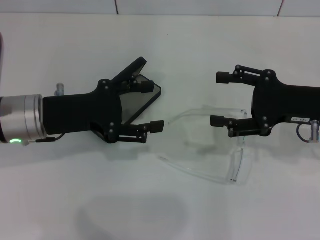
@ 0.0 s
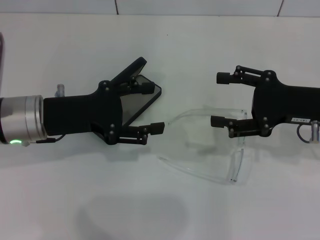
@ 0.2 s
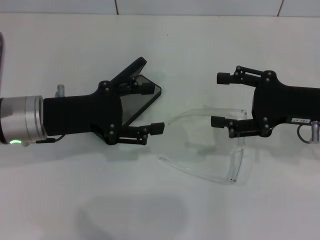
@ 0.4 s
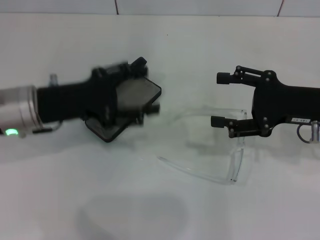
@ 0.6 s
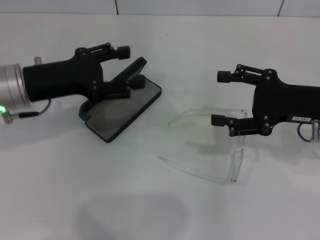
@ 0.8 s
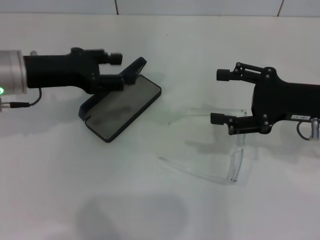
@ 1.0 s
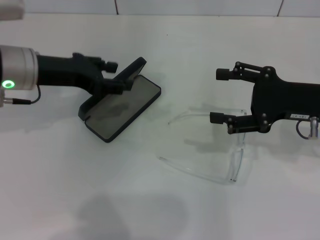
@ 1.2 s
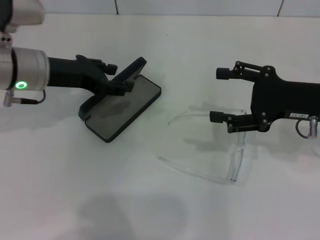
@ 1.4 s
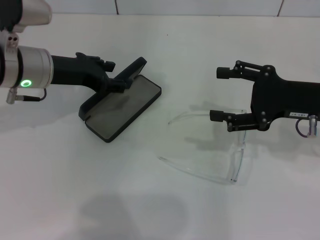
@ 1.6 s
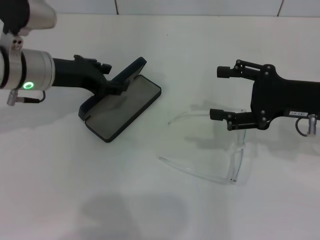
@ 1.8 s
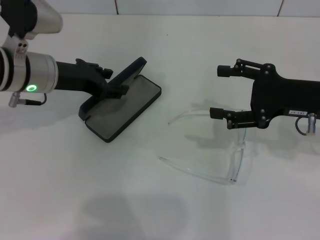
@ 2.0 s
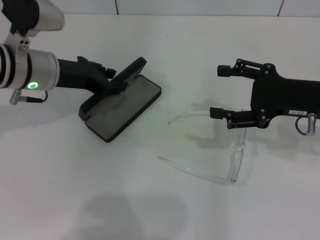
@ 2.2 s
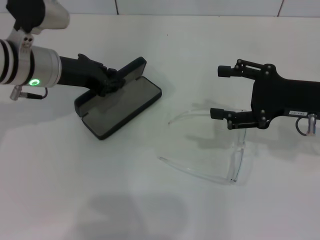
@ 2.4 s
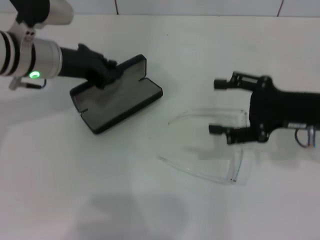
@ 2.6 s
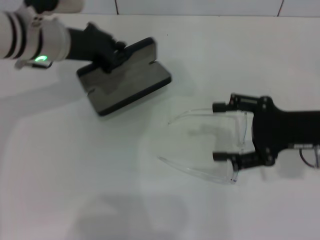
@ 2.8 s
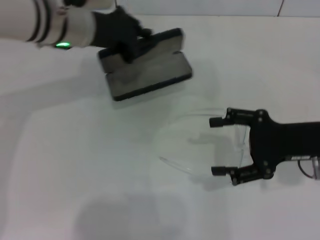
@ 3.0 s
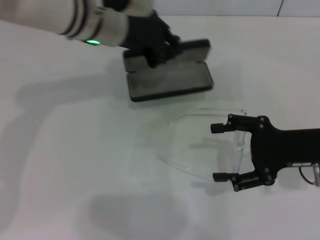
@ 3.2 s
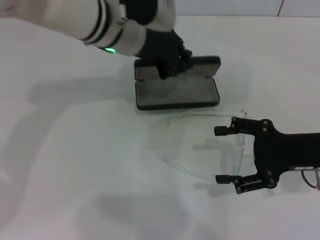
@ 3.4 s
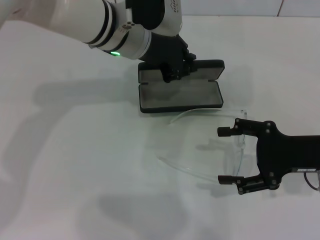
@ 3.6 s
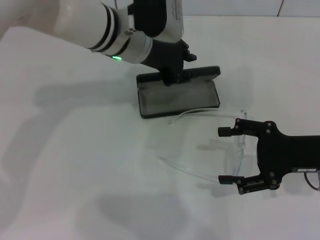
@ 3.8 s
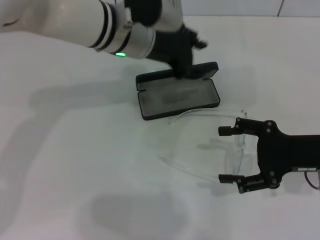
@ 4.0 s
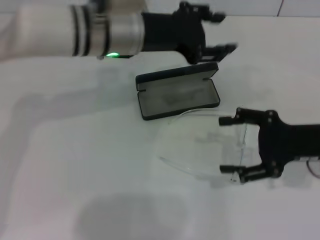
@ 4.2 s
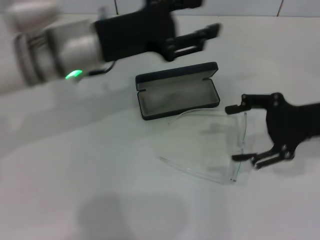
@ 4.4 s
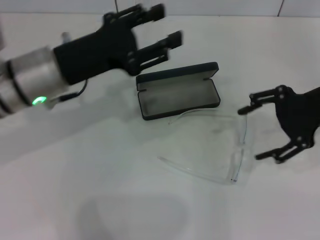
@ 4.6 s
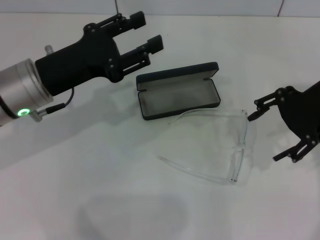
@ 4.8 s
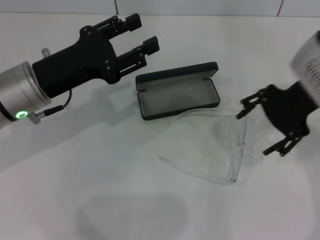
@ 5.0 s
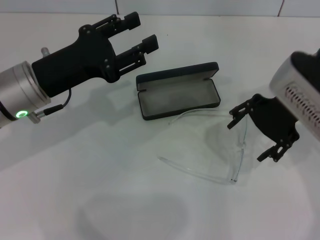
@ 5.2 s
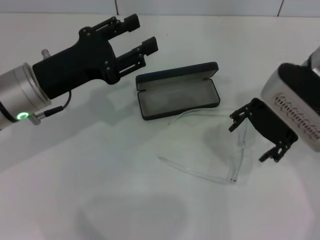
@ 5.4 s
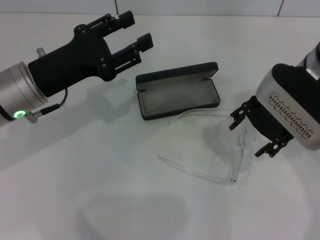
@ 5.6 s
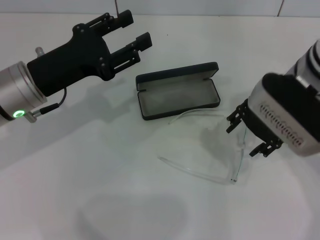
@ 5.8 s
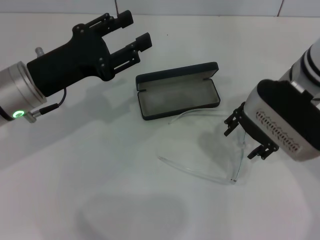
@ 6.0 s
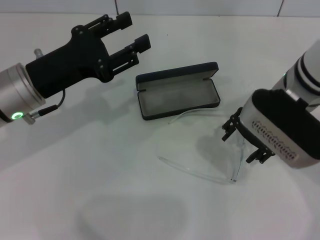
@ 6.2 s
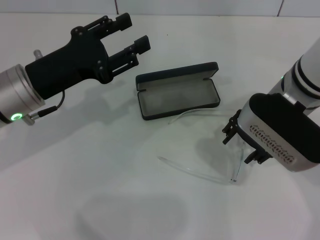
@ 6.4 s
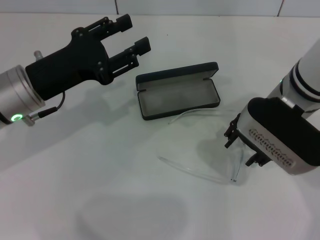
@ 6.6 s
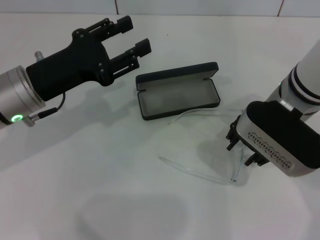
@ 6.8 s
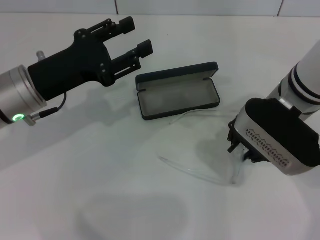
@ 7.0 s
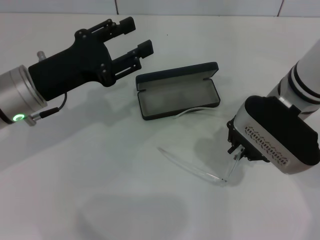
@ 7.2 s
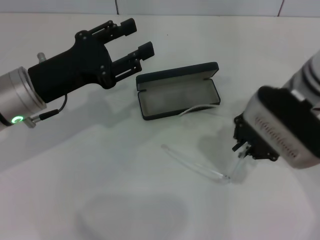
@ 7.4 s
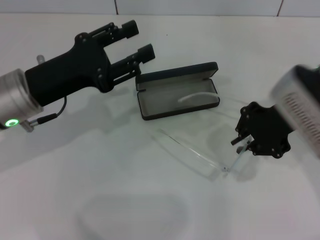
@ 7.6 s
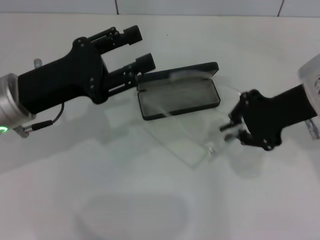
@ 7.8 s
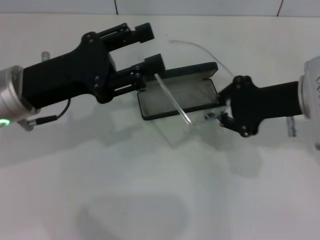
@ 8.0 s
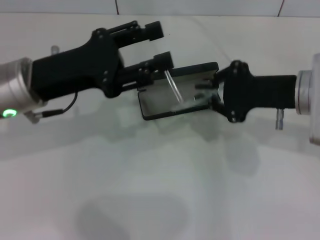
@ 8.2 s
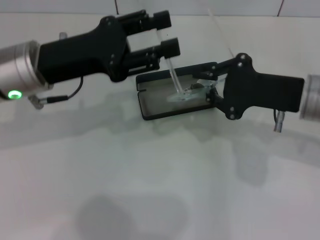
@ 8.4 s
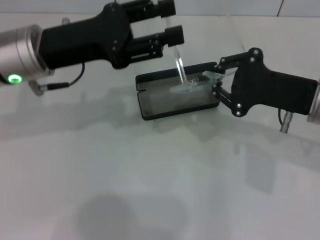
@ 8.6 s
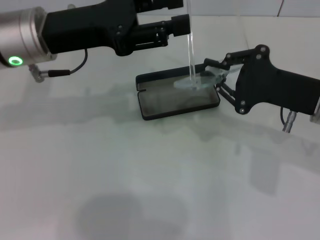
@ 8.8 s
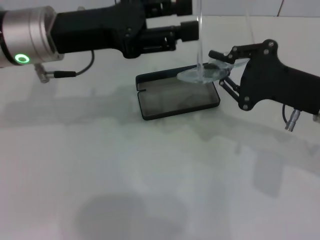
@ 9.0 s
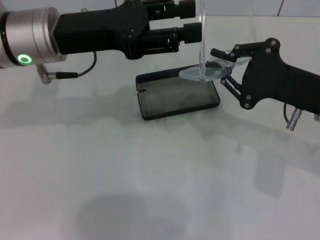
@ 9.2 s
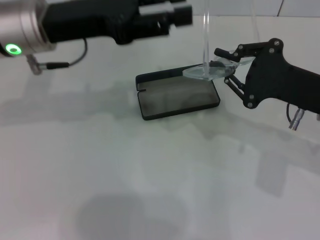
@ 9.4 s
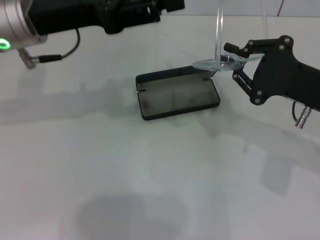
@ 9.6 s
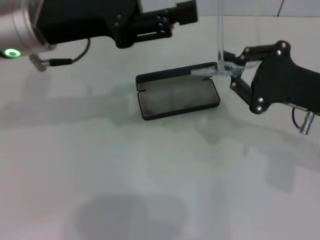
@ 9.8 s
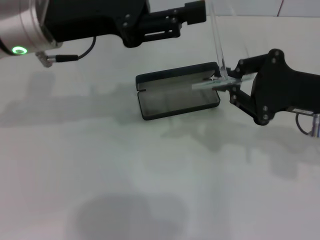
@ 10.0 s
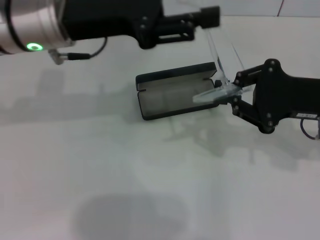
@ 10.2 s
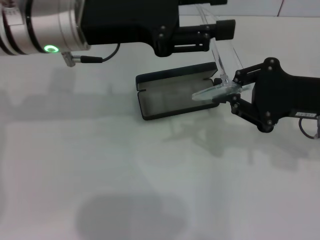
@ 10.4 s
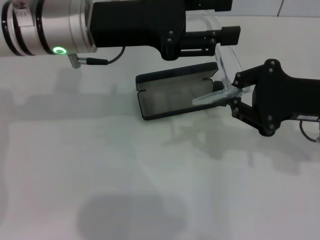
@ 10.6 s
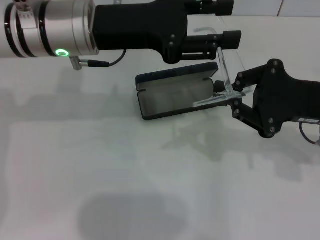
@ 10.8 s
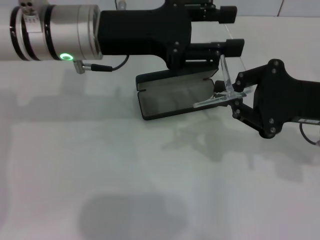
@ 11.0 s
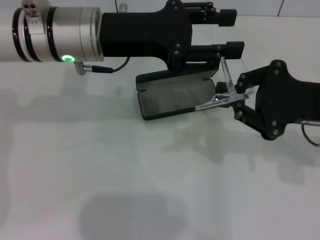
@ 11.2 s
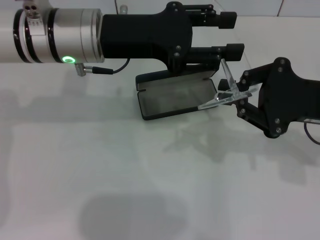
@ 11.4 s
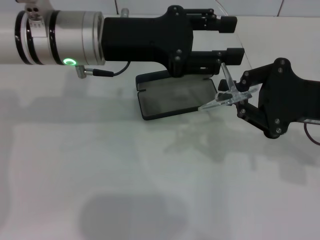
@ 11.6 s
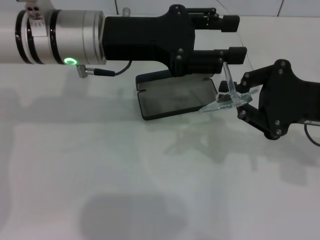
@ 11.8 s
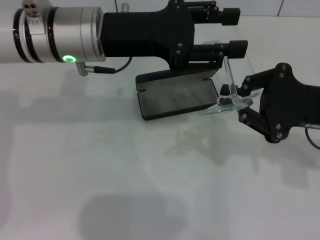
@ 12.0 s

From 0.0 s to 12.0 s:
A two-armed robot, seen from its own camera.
Step, from 0.0 s to 2.2 s: Grab the glasses case with your left hand.
Step, from 2.4 s to 3.8 s: Place the glasses case in the center of the table with your left hand.
Step, from 4.0 s to 7.2 s: Grab the eyeglass frame with your right hand.
From 0.0 s to 1.6 s: The left gripper travels forward by some 5 cm.
From 1.6 s to 3.0 s: The left gripper heads to the right, covering approximately 5 cm, and closes its fingers.
From 3.0 s to 4.4 s: The left gripper shifts roughly 5 cm backward, travels to the right and back again, roughly 10 cm each way, and opens up.
From 4.4 s to 6.0 s: Both grippers move to the left, roughly 10 cm.
From 6.0 s to 7.6 s: The right gripper closes its fingers.
From 7.6 s to 9.0 s: The left gripper is displaced upward and forward by some 10 cm; the right gripper changes place by roughly 5 cm.
From 10.4 s to 12.0 s: The grippers move only a little.

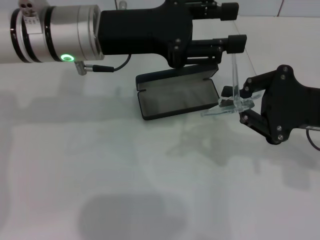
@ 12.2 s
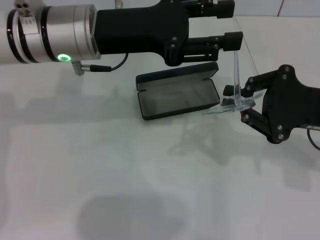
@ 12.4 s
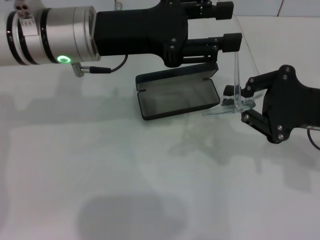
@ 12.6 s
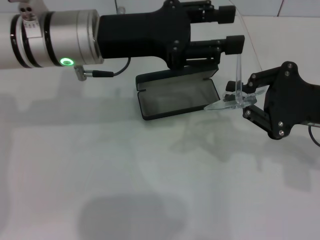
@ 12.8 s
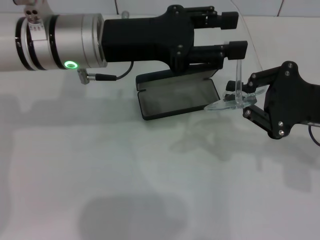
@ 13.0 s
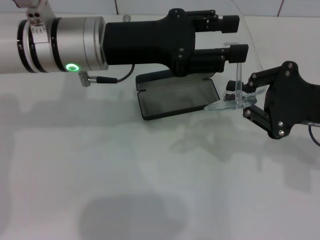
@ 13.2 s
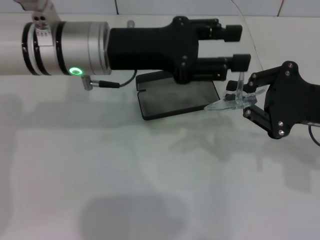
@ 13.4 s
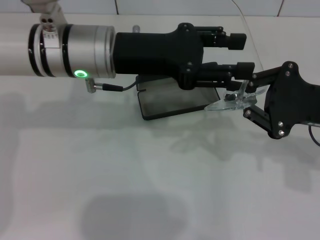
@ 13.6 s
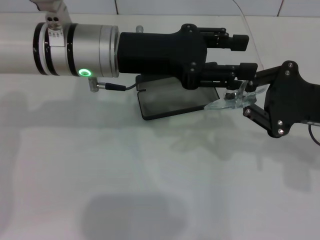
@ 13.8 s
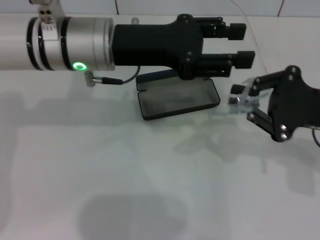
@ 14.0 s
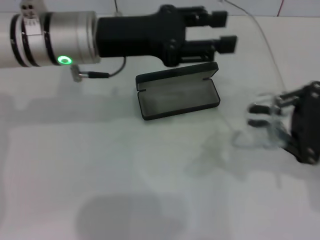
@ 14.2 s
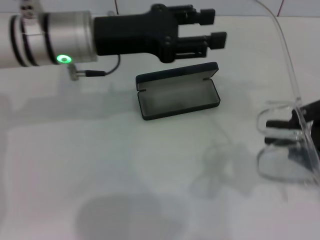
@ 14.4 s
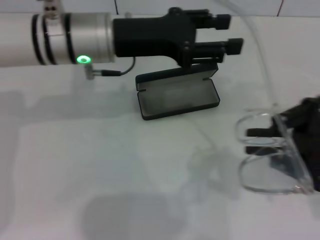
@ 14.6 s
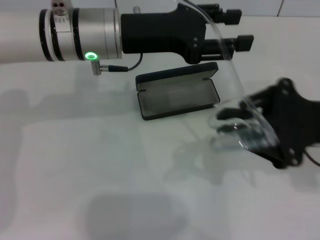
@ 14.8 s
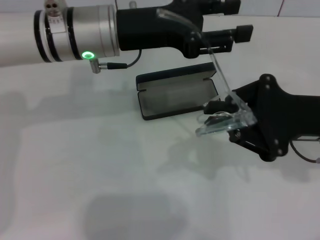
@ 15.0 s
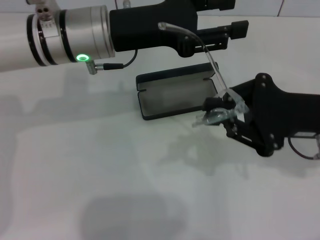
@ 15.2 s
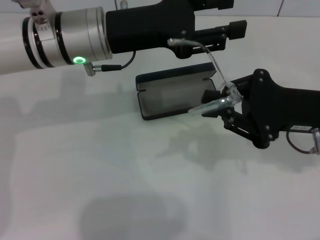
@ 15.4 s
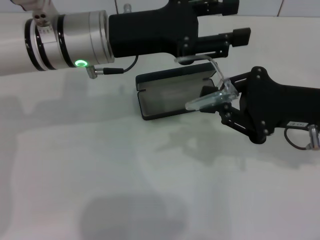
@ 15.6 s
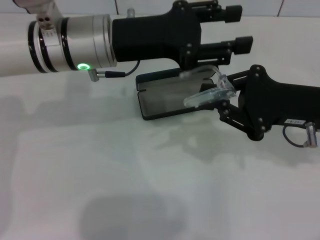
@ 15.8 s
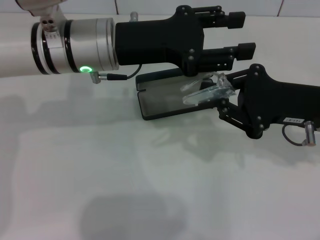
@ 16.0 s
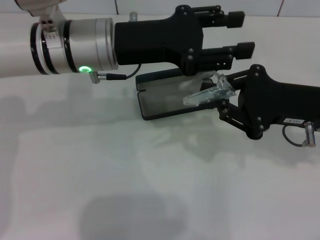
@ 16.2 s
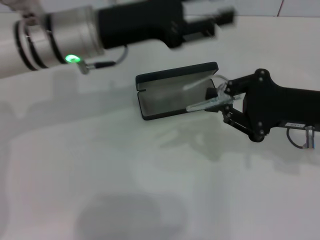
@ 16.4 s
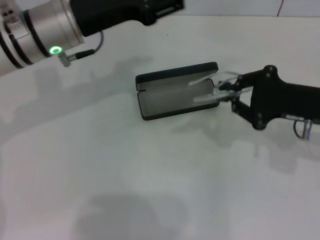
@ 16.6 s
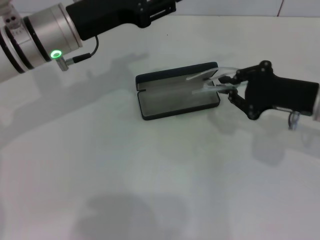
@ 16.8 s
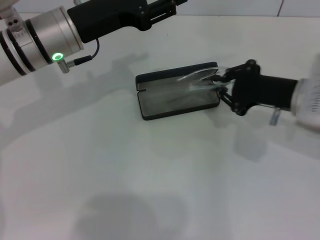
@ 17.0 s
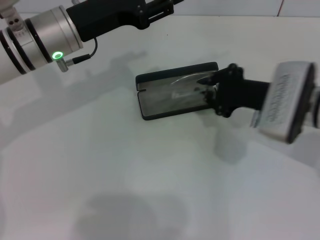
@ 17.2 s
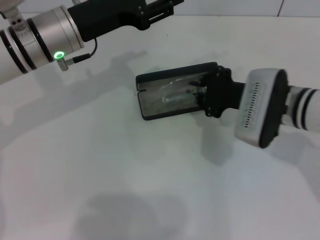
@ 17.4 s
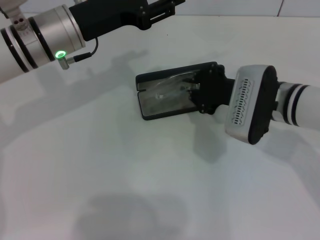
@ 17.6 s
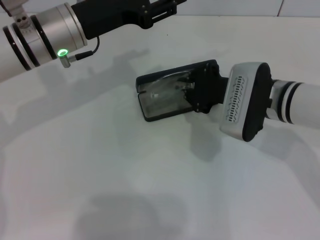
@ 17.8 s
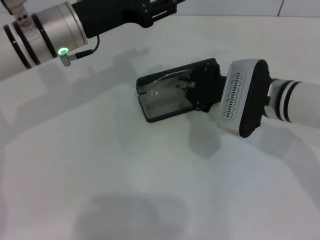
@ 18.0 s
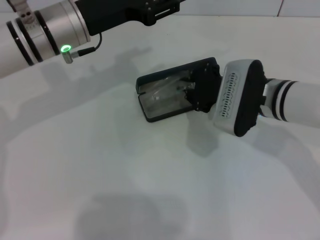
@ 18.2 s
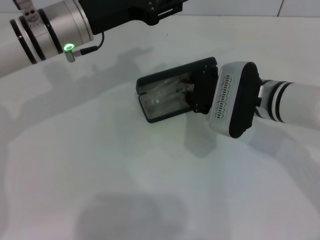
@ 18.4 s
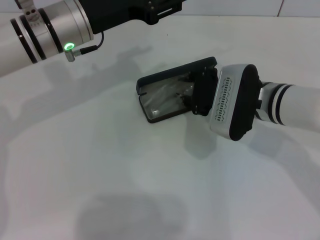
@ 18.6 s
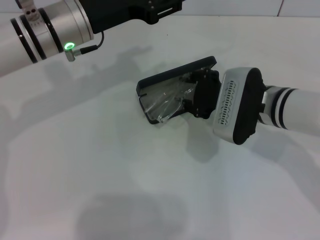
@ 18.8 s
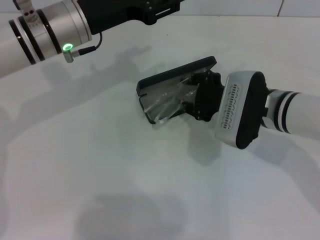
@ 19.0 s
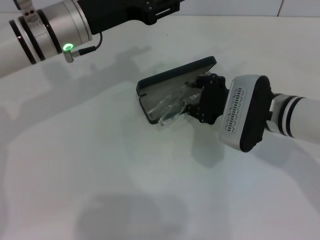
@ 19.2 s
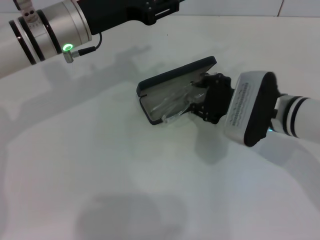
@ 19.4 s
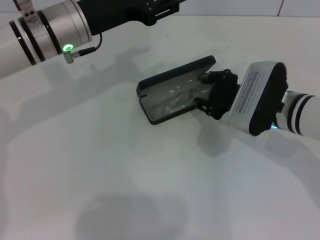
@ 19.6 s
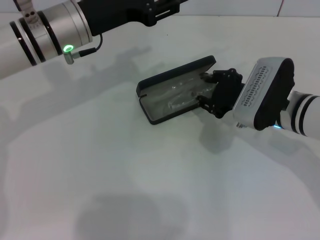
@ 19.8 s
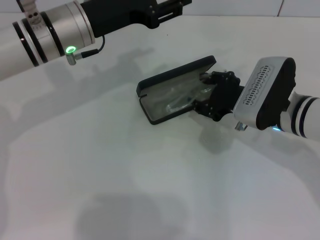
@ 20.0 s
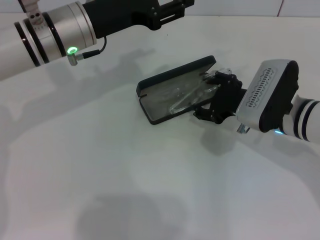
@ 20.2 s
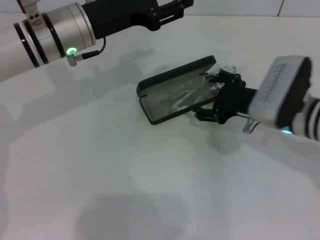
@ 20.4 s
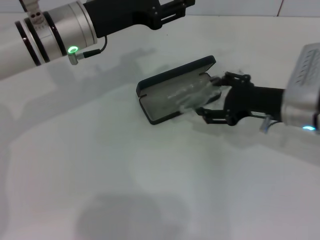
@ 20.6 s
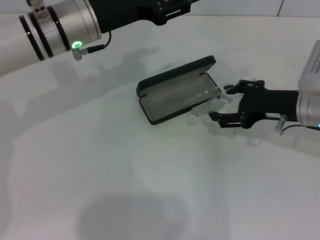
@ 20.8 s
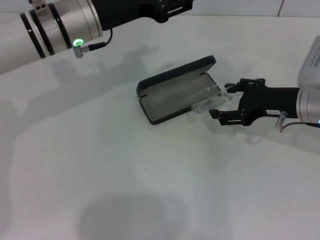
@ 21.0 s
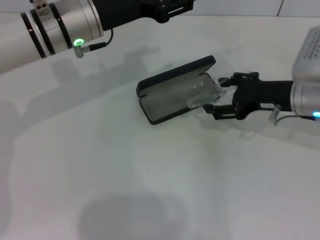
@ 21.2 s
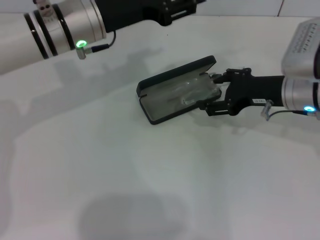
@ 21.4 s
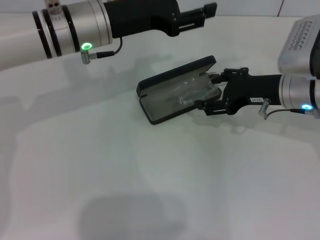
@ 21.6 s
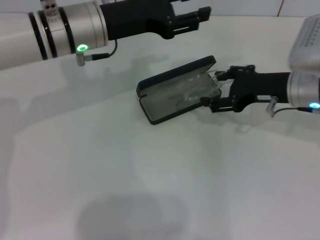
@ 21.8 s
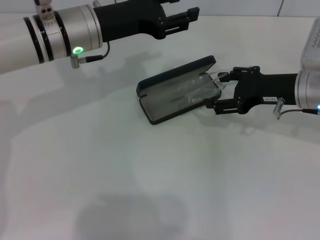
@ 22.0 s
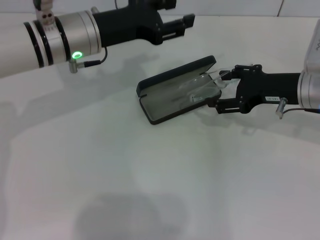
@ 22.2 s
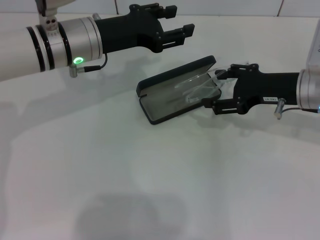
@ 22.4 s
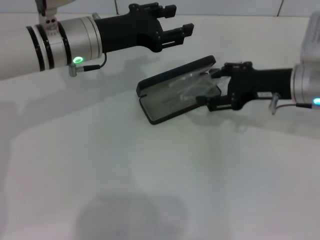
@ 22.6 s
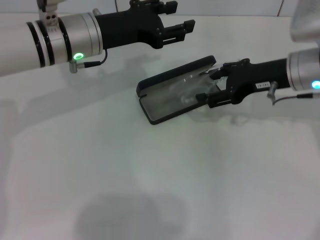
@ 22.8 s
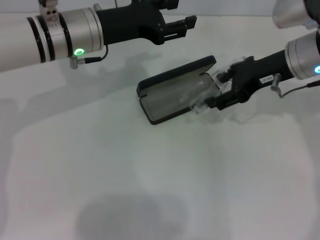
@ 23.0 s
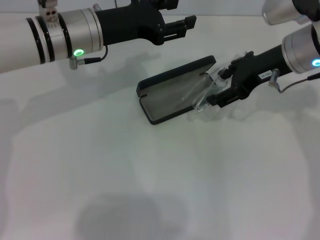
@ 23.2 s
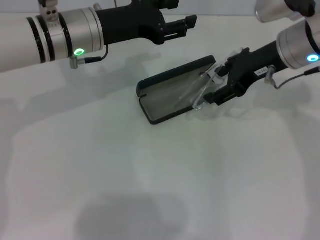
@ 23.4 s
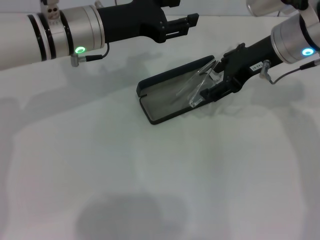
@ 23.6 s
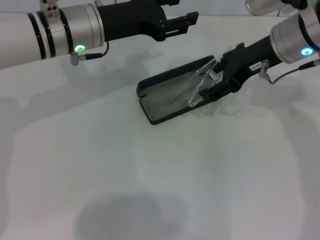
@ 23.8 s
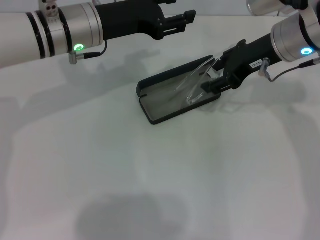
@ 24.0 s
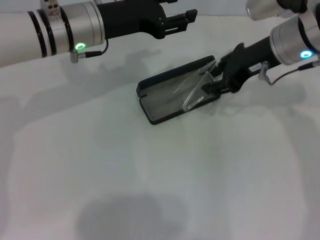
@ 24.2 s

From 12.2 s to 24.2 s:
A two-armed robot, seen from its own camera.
Step, from 12.2 s to 16.0 s: Fold the frame with your left hand.
From 16.6 s to 18.2 s: The right gripper moves to the left, roughly 10 cm.
From 18.2 s to 19.8 s: The right gripper opens its fingers.
From 19.8 s to 21.2 s: The right gripper shifts by some 5 cm, and opens.
From 21.2 s to 22.6 s: There are only small adjustments of the grippers.
From 22.6 s to 24.2 s: The right gripper travels upward by about 5 cm.
